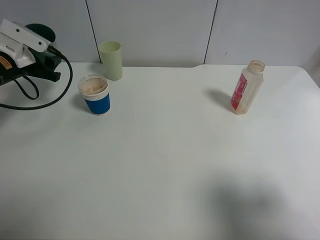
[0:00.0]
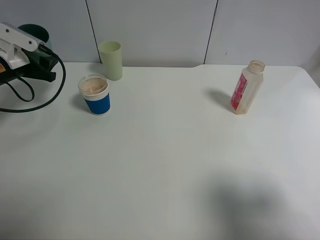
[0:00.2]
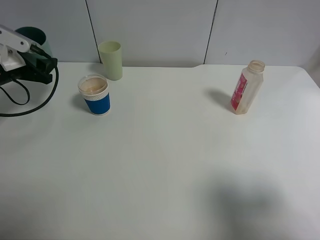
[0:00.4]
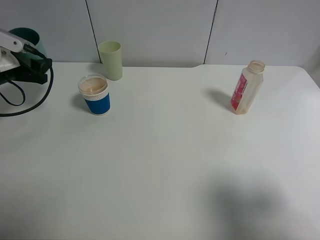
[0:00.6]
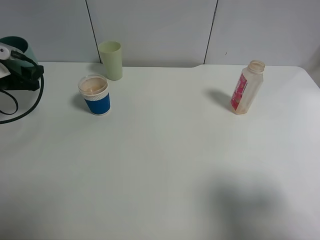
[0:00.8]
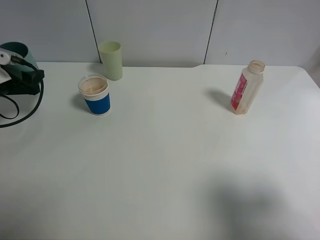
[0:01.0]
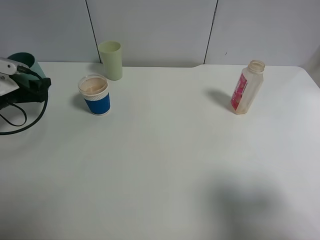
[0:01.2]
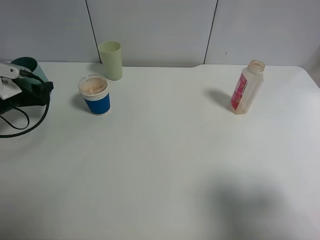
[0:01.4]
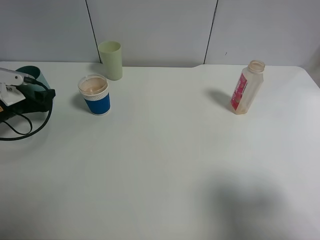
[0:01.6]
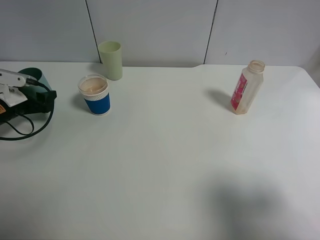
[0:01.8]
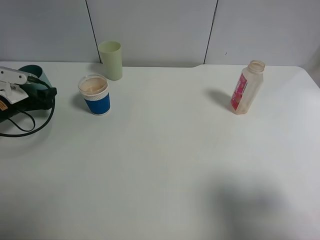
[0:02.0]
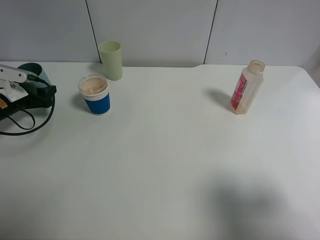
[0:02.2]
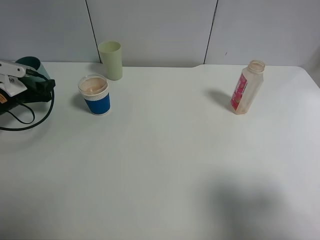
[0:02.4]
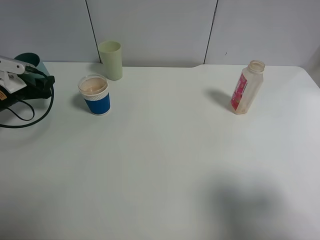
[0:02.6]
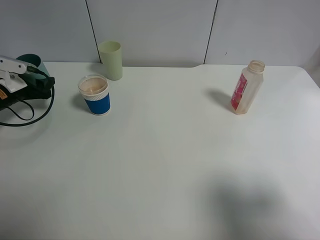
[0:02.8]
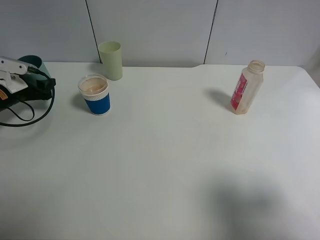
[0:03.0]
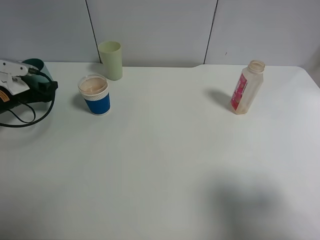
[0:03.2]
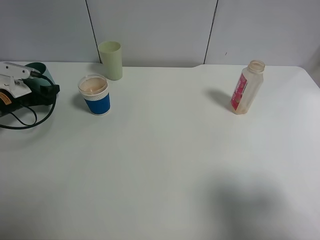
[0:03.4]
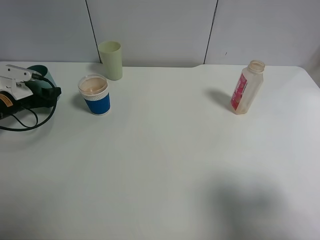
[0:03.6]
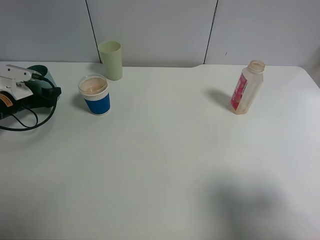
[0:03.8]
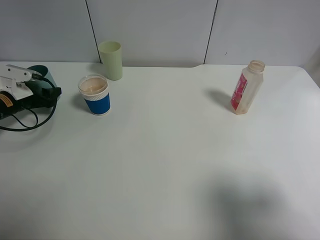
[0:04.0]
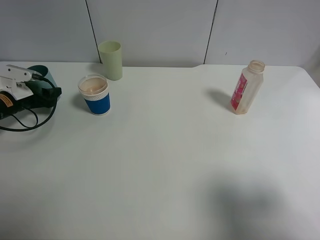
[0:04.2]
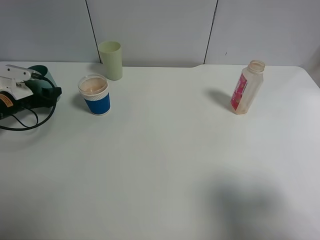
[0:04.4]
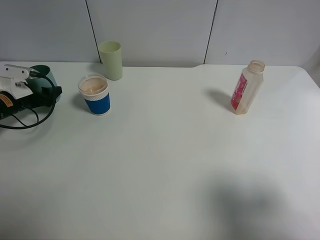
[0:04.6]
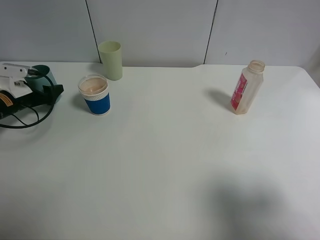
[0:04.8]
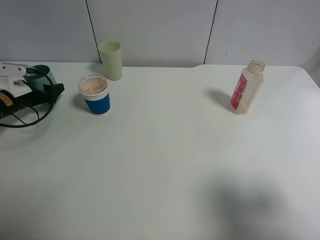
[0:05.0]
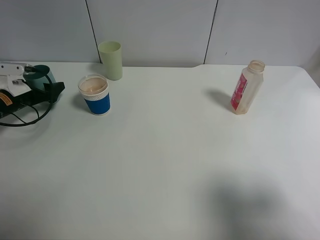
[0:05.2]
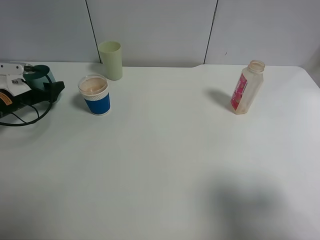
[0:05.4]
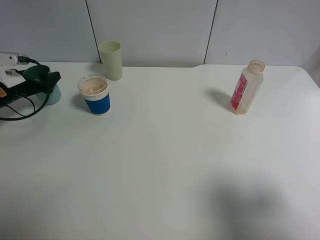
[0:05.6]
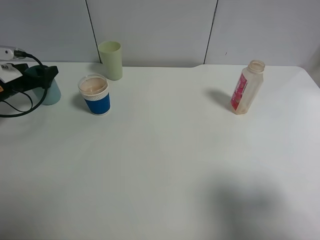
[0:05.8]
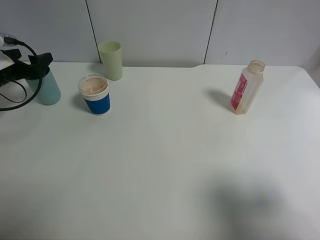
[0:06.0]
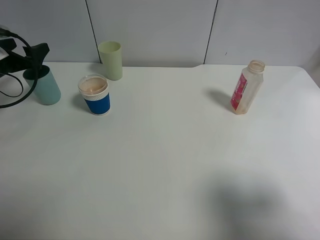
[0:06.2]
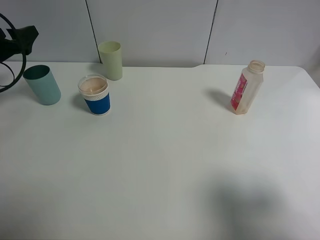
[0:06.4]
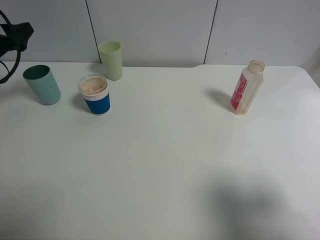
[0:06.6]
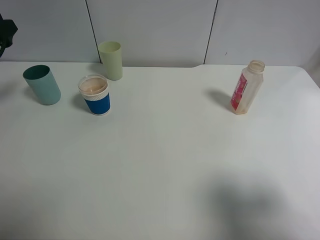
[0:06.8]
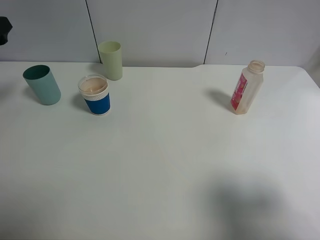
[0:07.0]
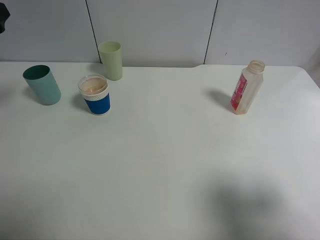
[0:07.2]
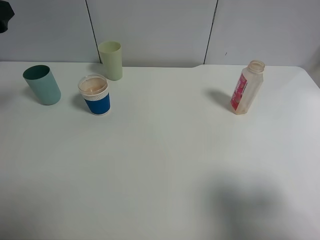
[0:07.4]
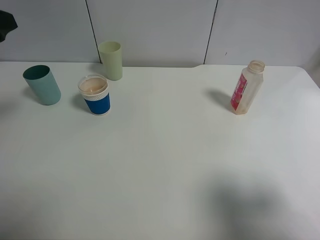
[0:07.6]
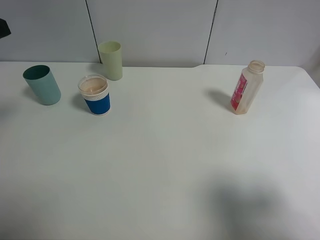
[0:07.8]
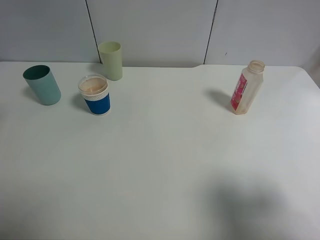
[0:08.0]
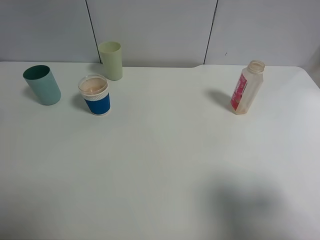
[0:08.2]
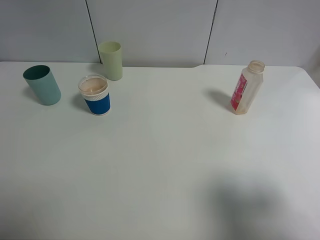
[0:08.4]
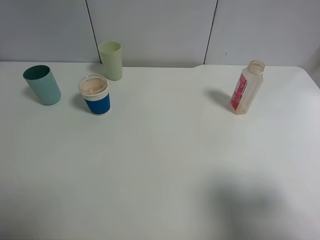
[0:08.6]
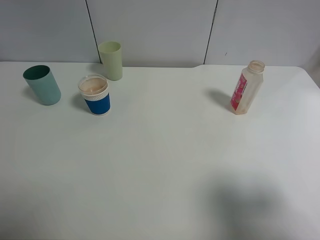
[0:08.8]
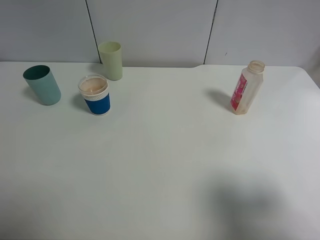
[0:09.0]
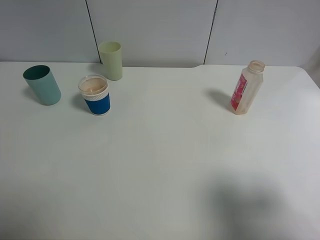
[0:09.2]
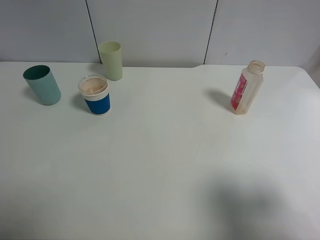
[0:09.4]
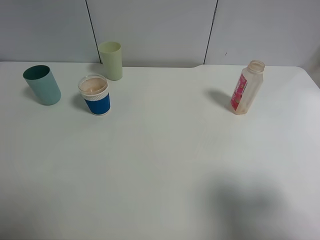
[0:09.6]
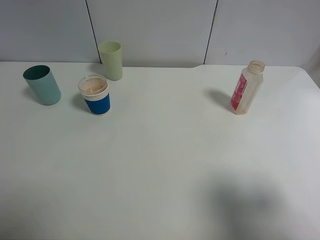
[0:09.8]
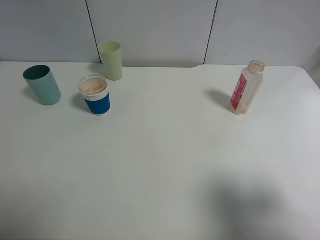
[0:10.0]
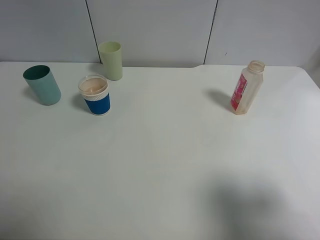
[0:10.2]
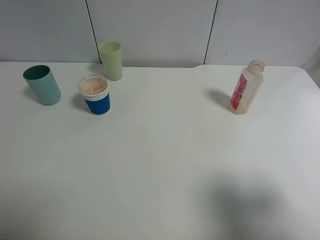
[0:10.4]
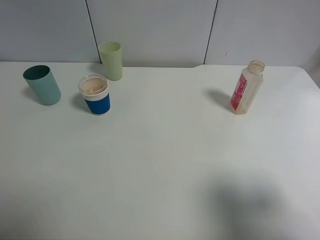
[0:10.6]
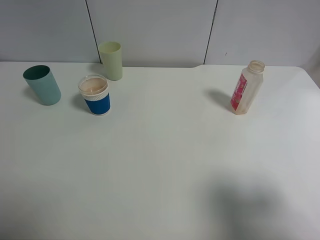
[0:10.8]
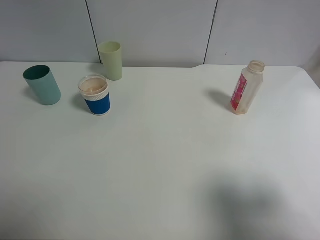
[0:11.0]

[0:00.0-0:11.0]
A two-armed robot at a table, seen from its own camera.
Task of the whole recording: use a clamp to hold the bottle of the drink, pour the beverage into a random cup, then clamp the cup containing the drink and pour the drink into another random cup.
Step, 0:00.0 to 0:06.2: Place the blue plastic cup on the table with left gripper.
0:00.0 to 0:01.6: The left gripper goes roughly 10 cm downward and to the left.
0:01.6 to 0:04.8: There are only small adjustments of the grippers.
0:04.8 to 0:06.2: The left gripper is displaced upward by approximately 10 cm, and opens.
0:06.2 to 0:07.8: The left gripper travels upward, backward and to the right by some 20 cm.

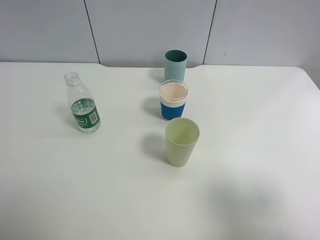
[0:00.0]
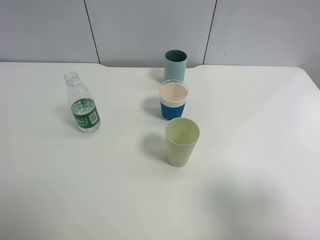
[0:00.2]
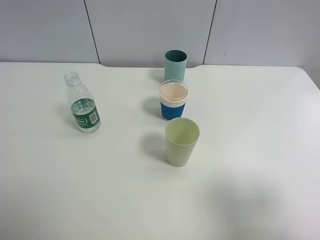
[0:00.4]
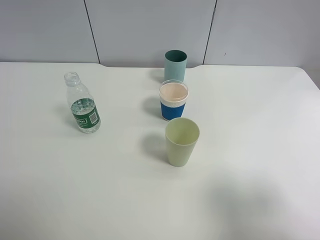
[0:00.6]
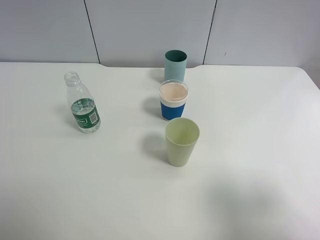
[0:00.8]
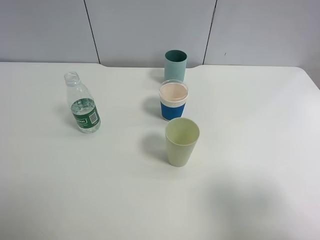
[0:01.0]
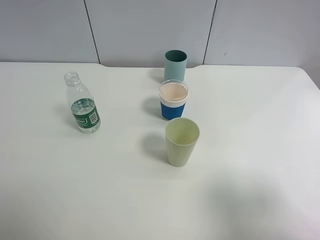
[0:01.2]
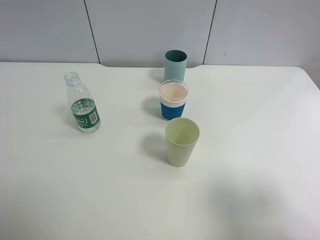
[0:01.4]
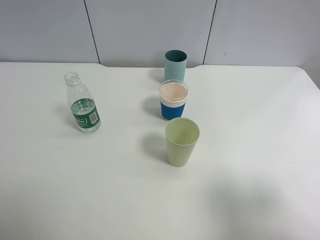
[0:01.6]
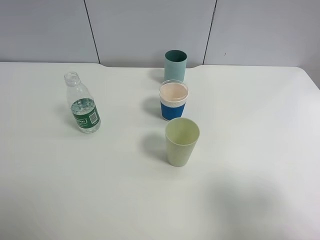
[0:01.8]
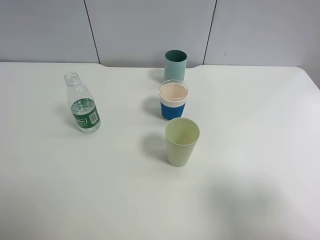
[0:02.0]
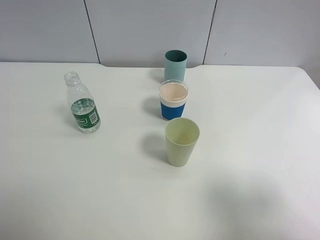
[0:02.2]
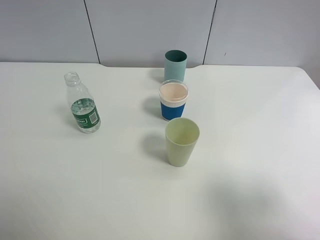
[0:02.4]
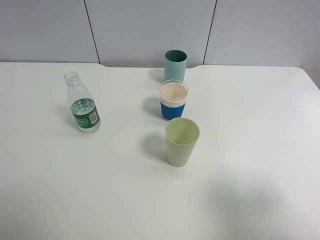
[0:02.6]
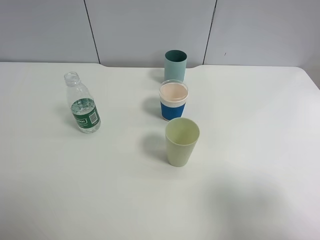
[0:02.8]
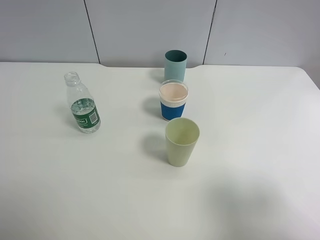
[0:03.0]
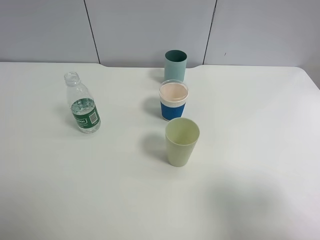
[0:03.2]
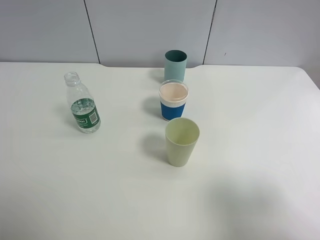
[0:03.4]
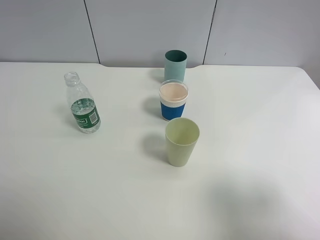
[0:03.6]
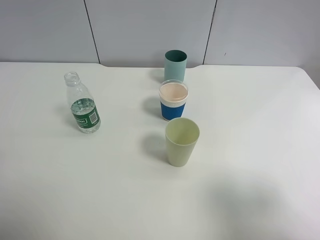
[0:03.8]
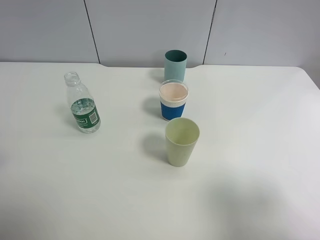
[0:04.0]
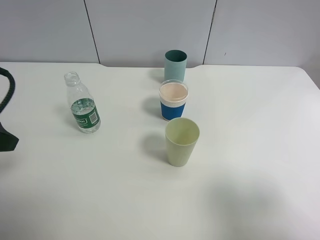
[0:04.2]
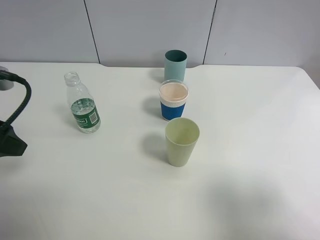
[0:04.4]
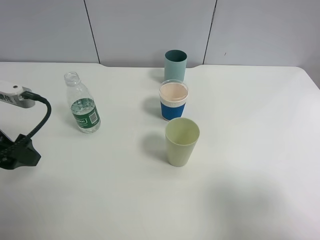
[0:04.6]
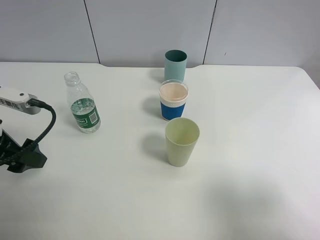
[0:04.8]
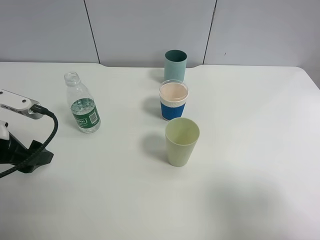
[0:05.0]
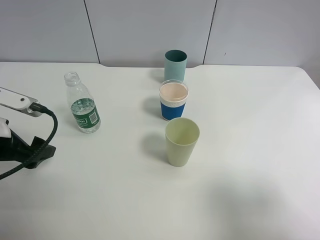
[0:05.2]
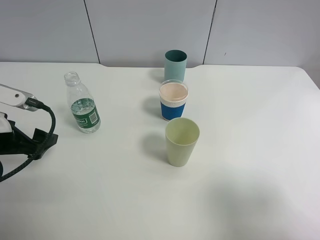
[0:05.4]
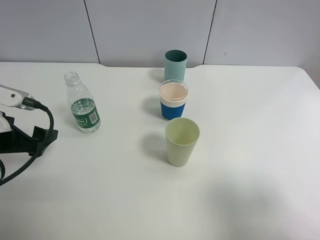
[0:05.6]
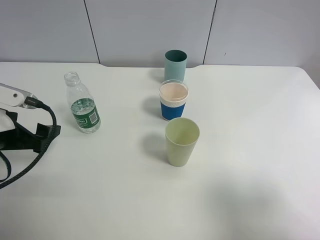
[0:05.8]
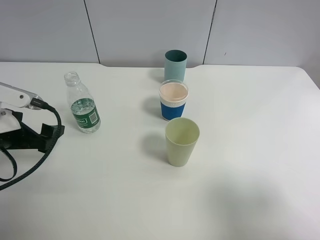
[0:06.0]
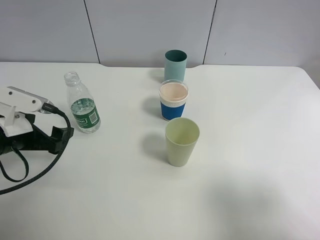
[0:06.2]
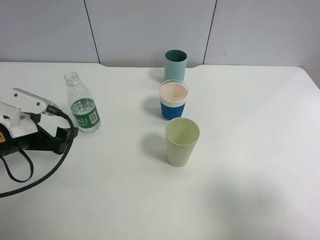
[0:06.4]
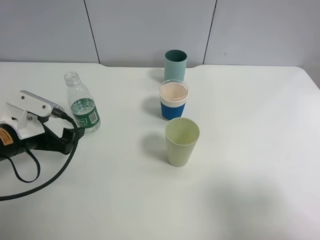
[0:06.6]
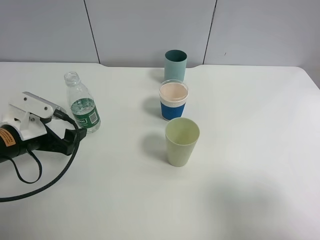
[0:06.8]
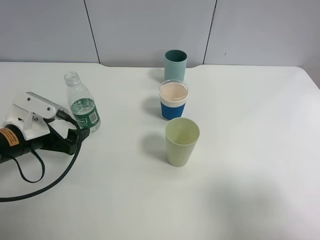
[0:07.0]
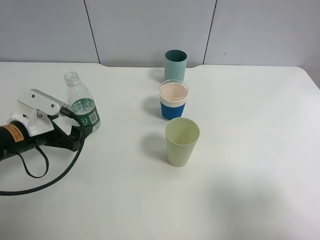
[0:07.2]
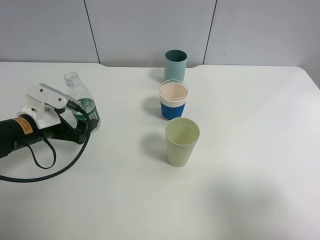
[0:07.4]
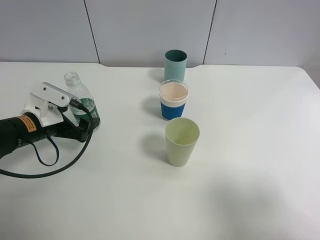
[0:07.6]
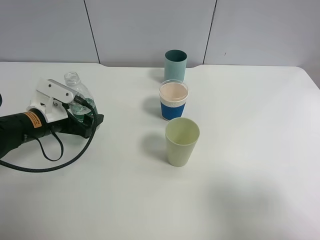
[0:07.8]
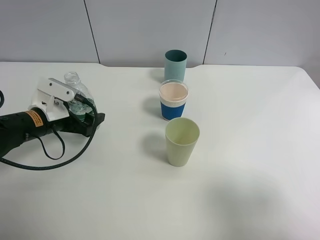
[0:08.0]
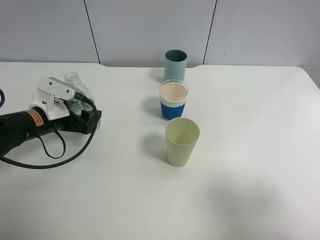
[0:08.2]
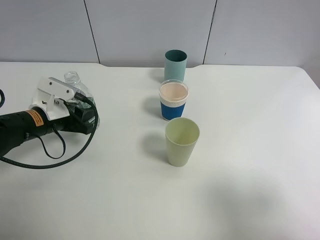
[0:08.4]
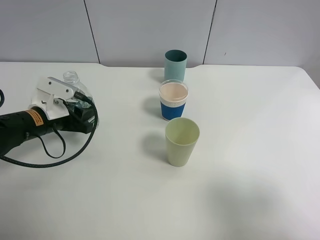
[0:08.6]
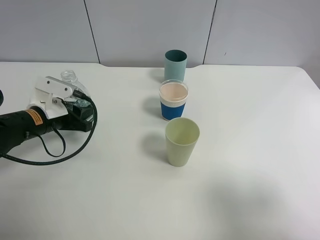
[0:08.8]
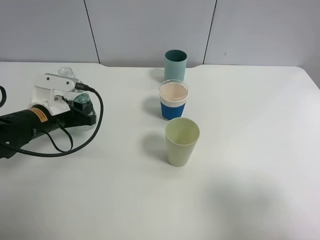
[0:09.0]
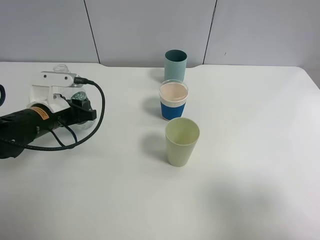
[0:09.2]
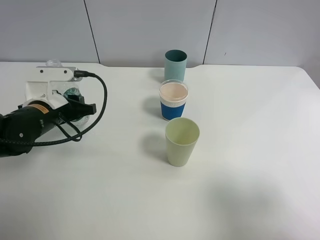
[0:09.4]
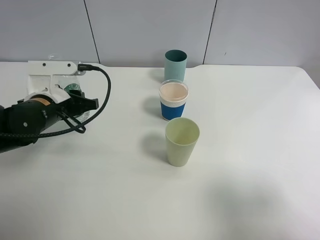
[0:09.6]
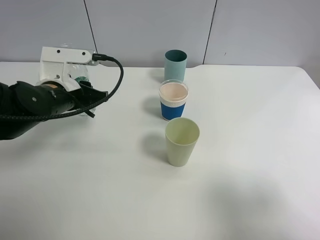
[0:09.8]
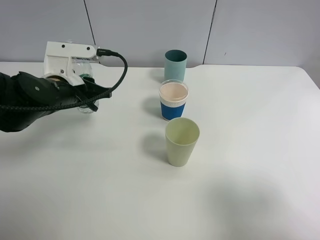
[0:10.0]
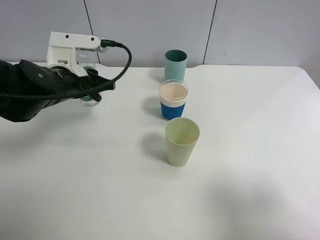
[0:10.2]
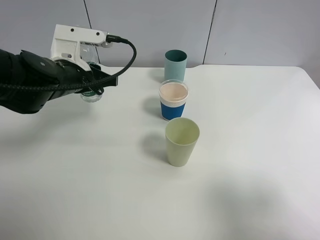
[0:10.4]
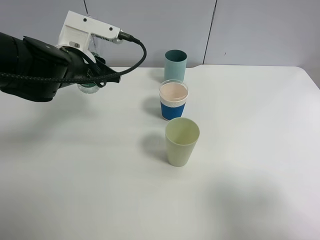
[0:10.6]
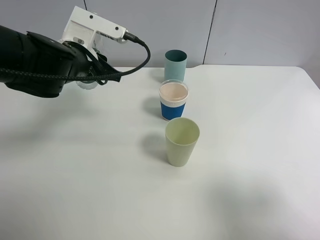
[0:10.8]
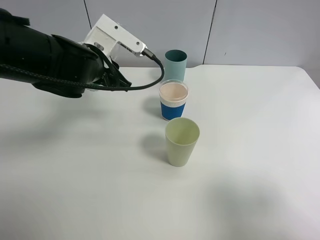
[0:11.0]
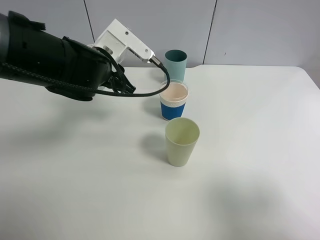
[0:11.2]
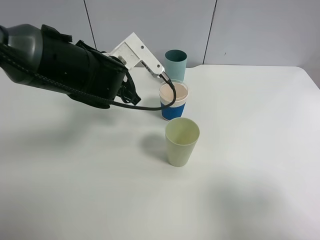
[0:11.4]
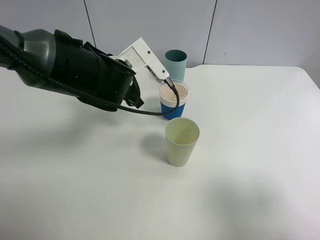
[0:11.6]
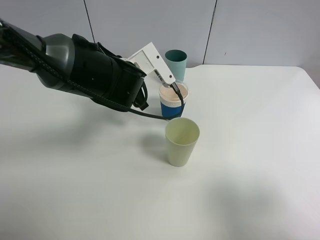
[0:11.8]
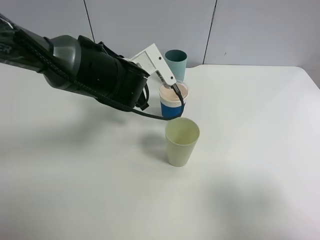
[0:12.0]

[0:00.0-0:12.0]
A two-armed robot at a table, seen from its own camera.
Task of the whole recording: use a clamp to hold the bottle of the drink, pour the beverage into a random cup, then clamp the cup containing the drink and pour the drink into another random cup.
Step, 0:00.0 to 0:09.8: Pick up the water bottle with left gripper.
0:00.0 to 0:03.0: Both grippers stay about where they are.
0:03.0 to 0:04.4: The left gripper is displaced forward by about 15 cm.
0:04.4 to 0:06.0: The left gripper moves downward, approximately 10 cm.
0:06.0 to 0:07.6: The left gripper shifts about 10 cm forward and downward.
0:07.6 to 0:09.0: The left gripper closes.
0:09.0 to 0:10.4: The left gripper moves upward and to the right, some 10 cm.
0:10.4 to 0:12.0: The left gripper travels to the right by roughly 10 cm.
